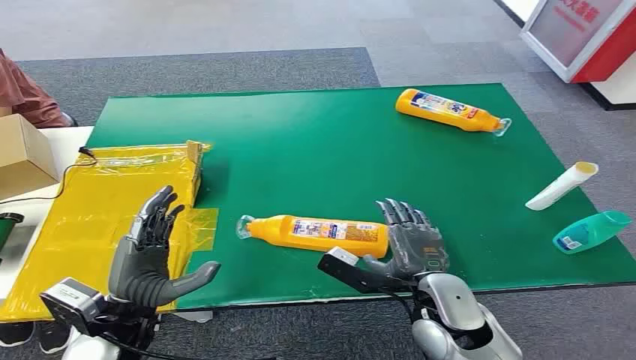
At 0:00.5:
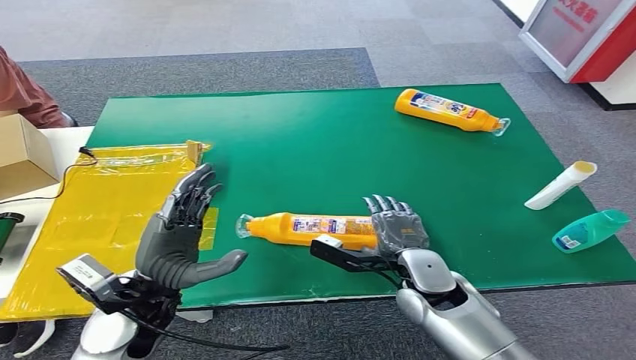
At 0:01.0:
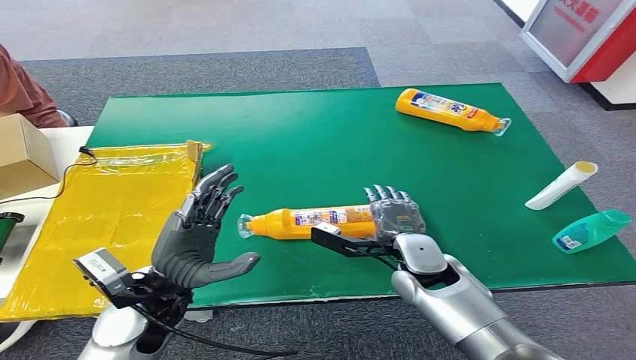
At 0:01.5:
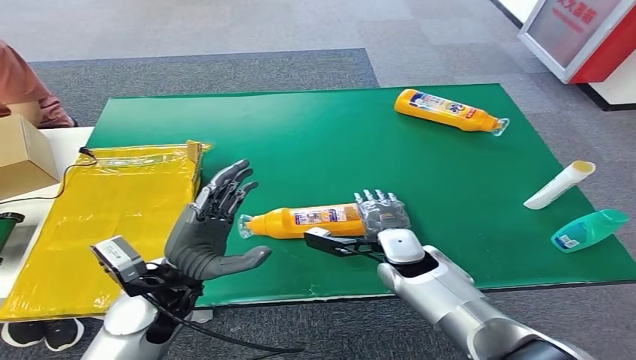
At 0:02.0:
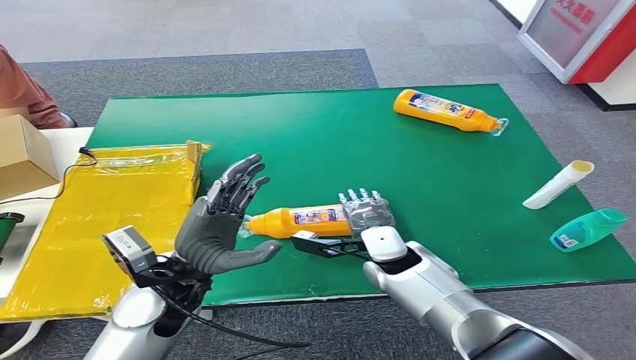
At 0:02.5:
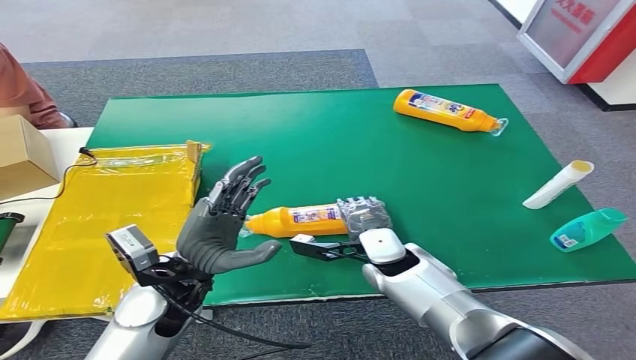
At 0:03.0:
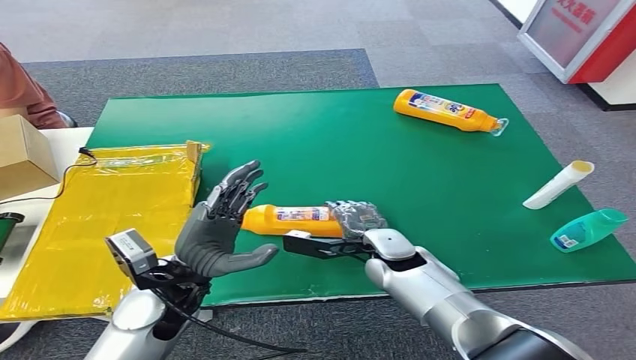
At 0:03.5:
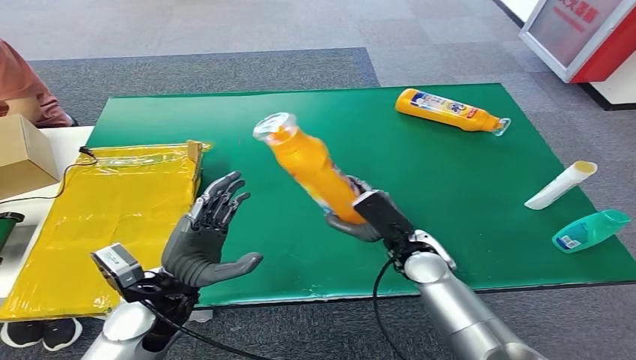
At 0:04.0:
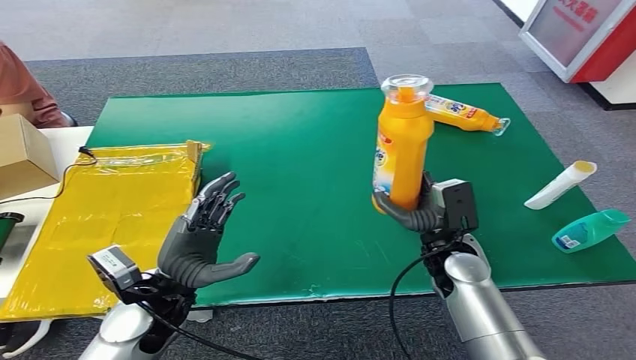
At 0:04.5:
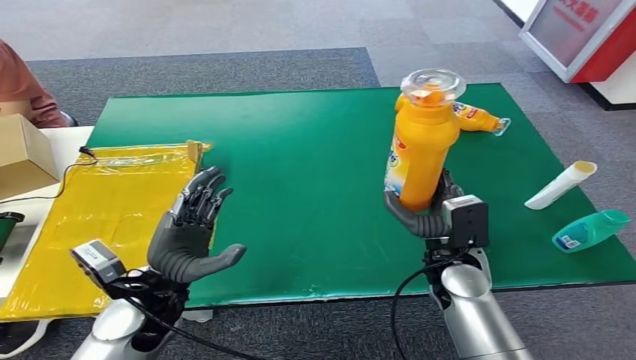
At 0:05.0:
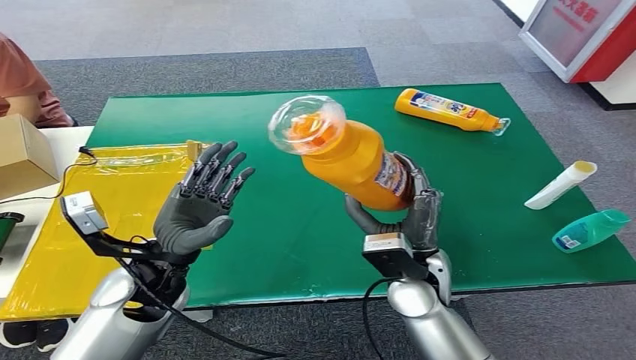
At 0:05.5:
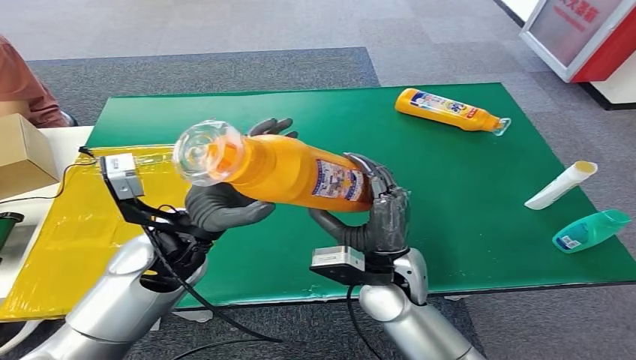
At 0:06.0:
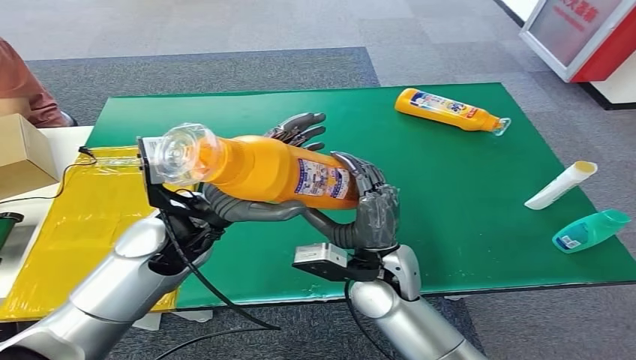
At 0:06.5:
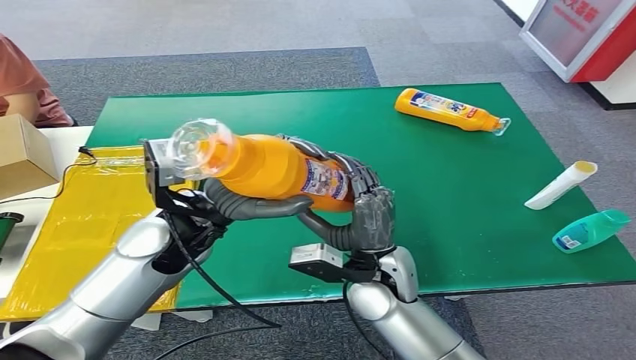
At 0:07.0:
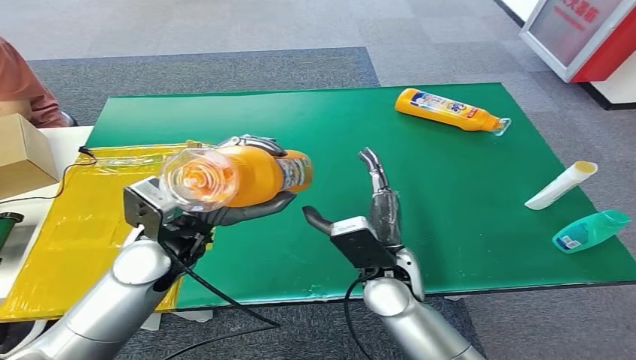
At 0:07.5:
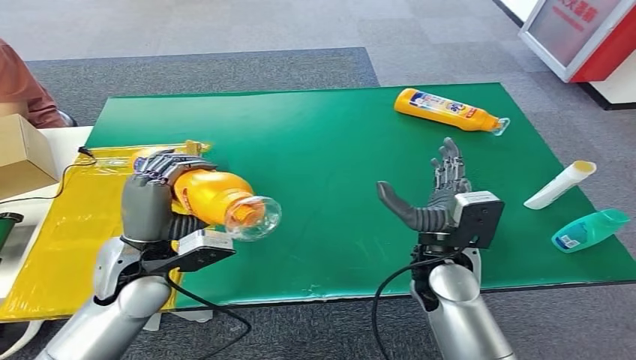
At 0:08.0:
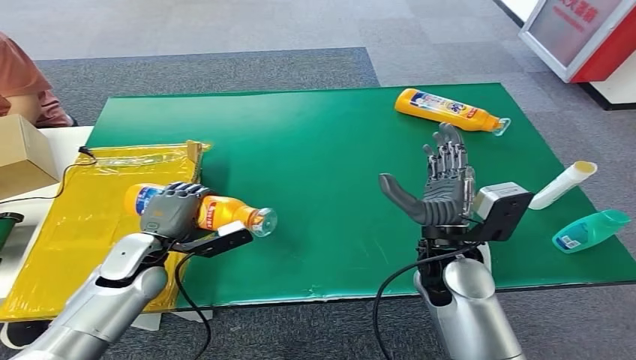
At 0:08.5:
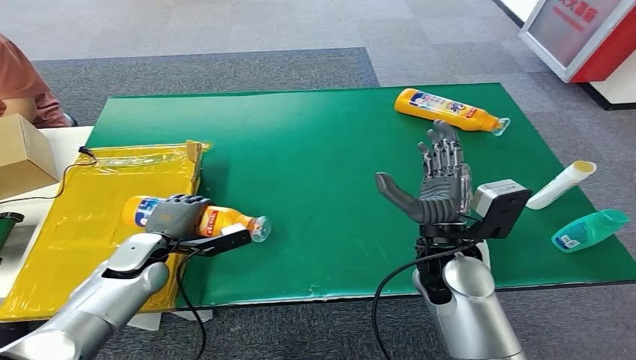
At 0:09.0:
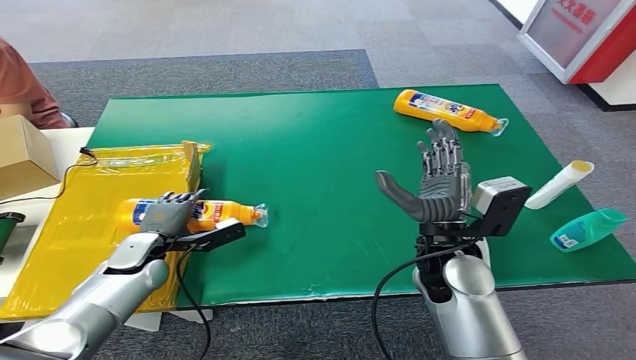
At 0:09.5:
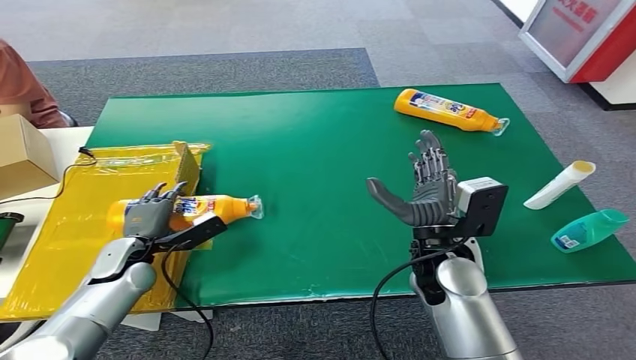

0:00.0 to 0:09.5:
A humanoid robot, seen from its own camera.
Step, 0:00.0 to 0:04.0: Pick up the bottle from the table.
Step, 0:04.5 to 0:09.5: Turn the bottle to the front side.
0:07.5 to 0:09.5: The left hand is displaced downward and to the left by approximately 15 cm.

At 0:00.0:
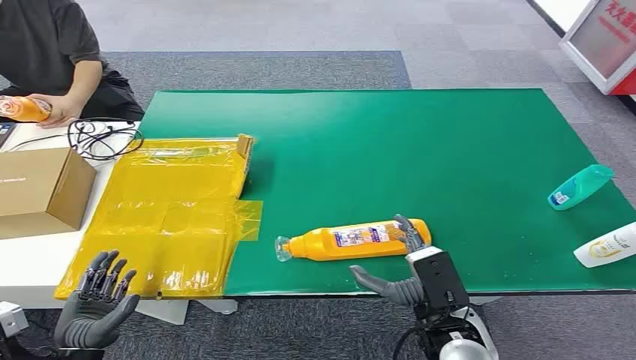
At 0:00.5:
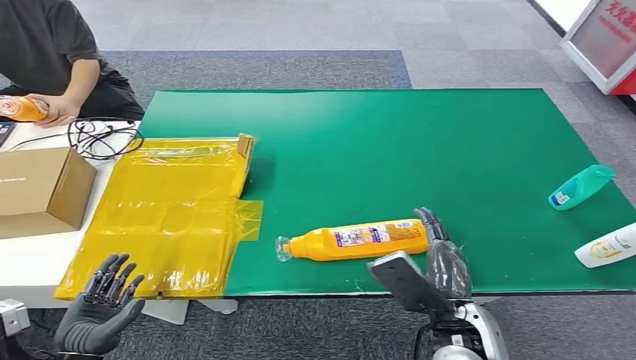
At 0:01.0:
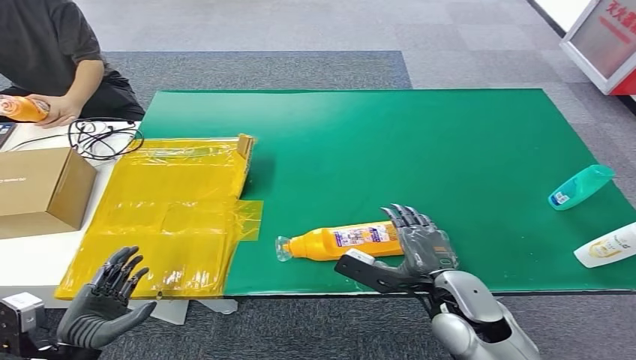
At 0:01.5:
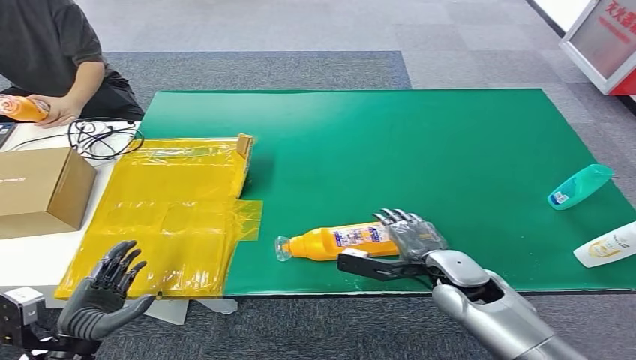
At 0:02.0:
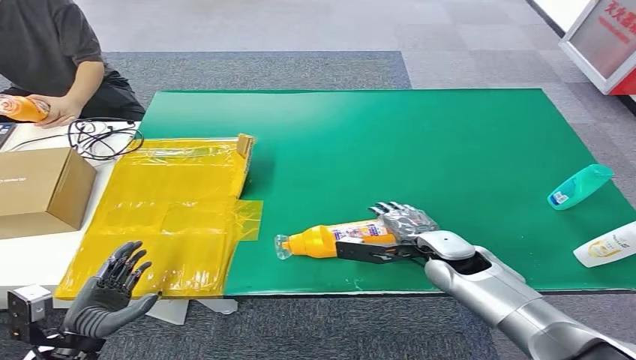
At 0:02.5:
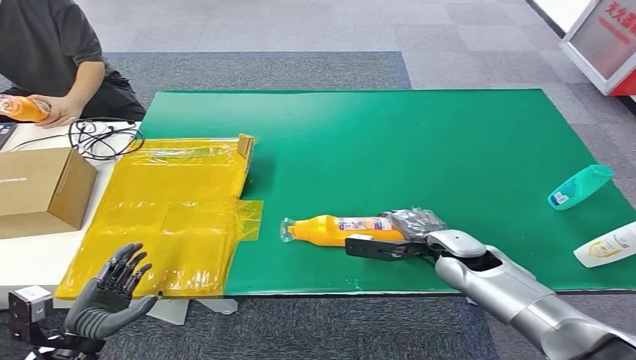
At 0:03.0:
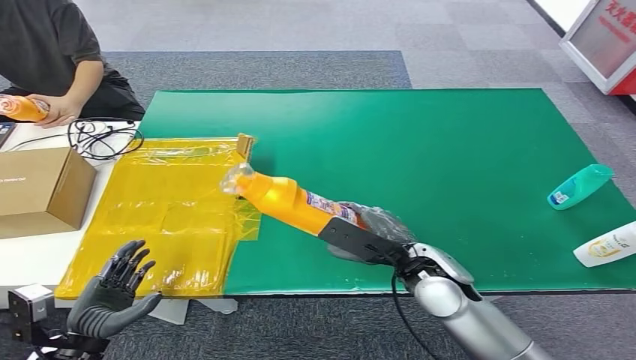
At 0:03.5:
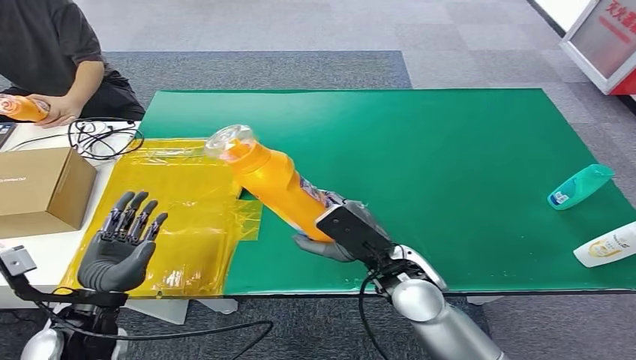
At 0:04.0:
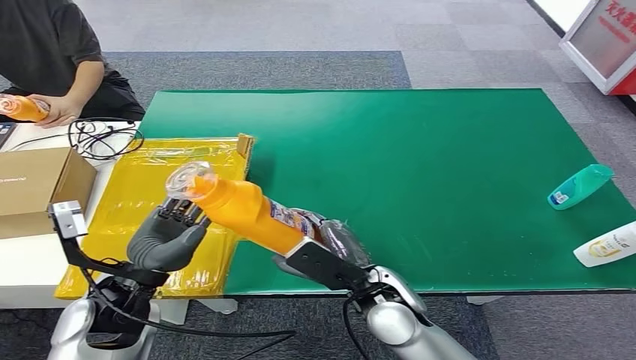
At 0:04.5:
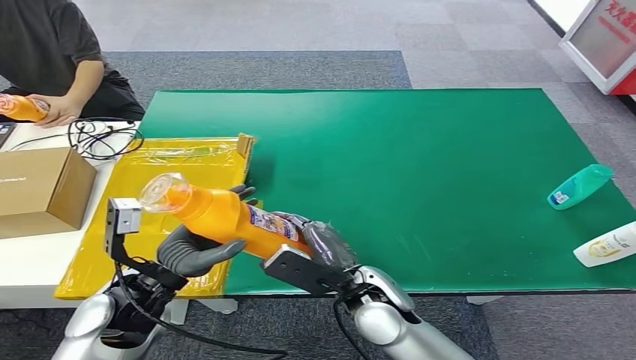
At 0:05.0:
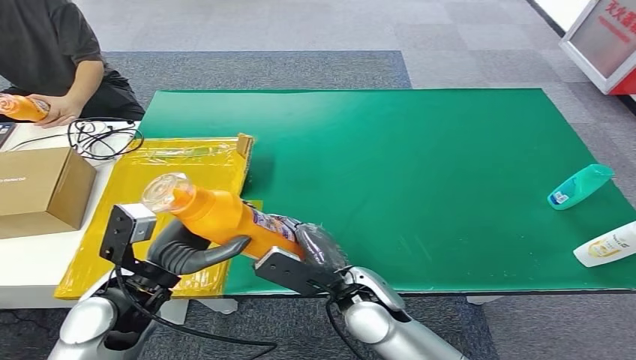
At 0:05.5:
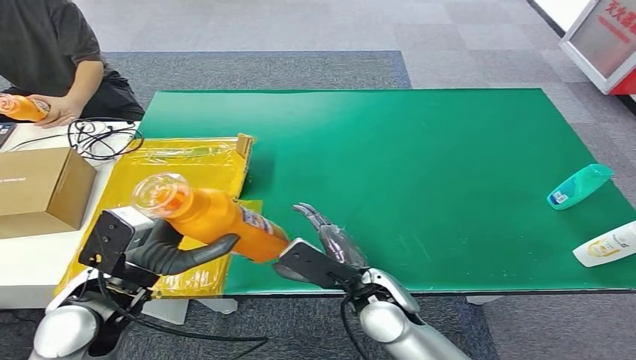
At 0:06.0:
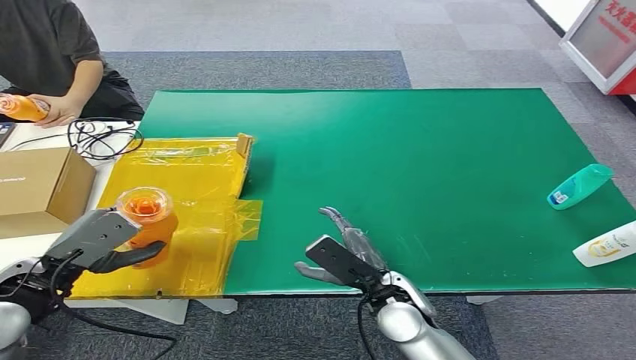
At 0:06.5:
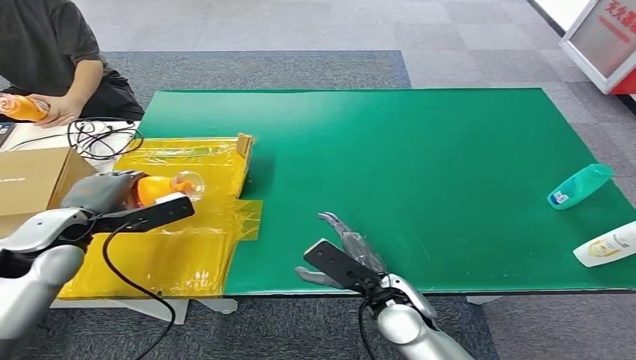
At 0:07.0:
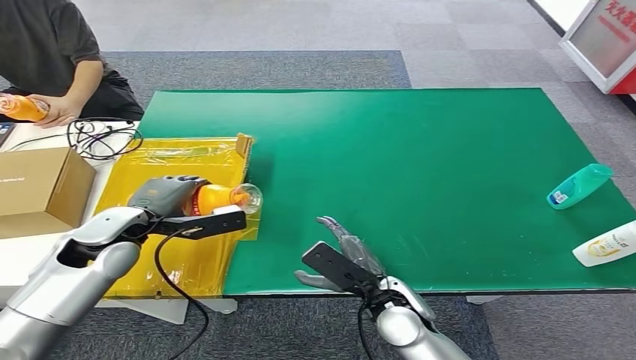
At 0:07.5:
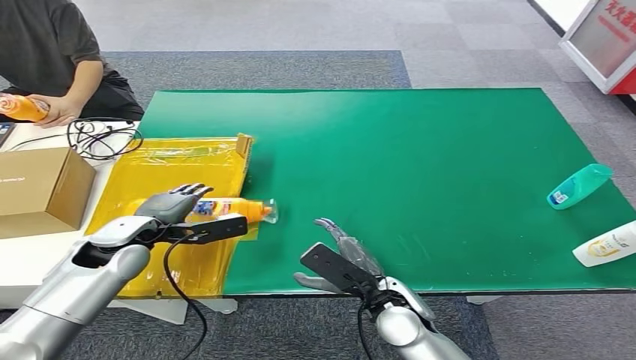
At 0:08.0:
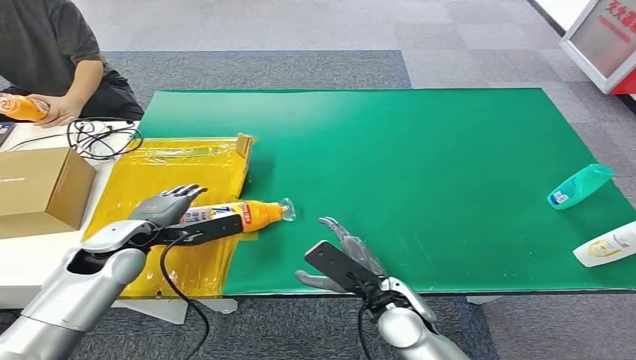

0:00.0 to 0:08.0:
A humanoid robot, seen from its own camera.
Step, 0:00.0 to 0:03.5: Pick up the bottle from the table.
Step, 0:04.0 to 0:08.0: Turn the bottle to the front side.
0:04.0 to 0:06.0: The left hand shifts some 15 cm to the left.
0:06.0 to 0:08.0: The left hand travels forward, to the right and downward by about 15 cm.

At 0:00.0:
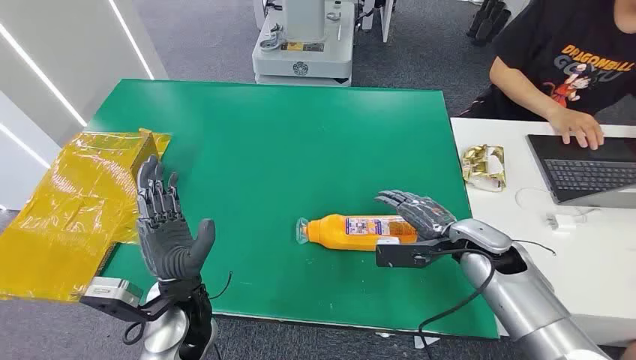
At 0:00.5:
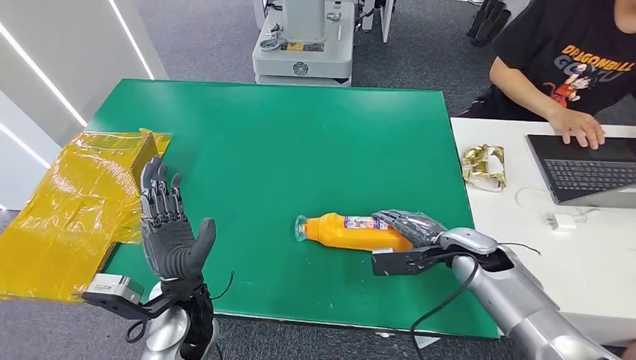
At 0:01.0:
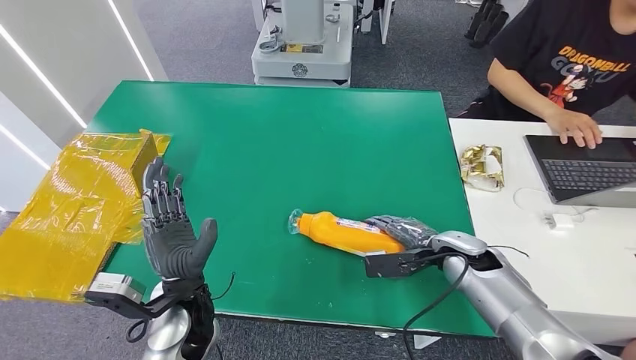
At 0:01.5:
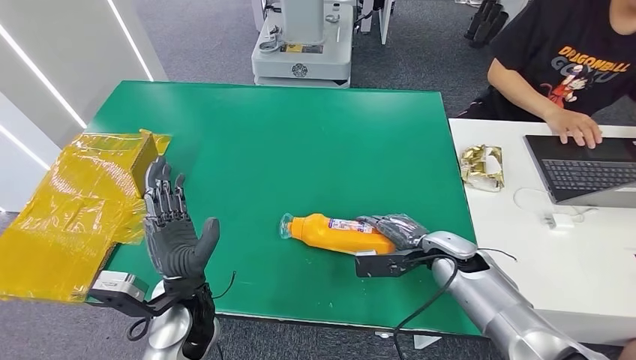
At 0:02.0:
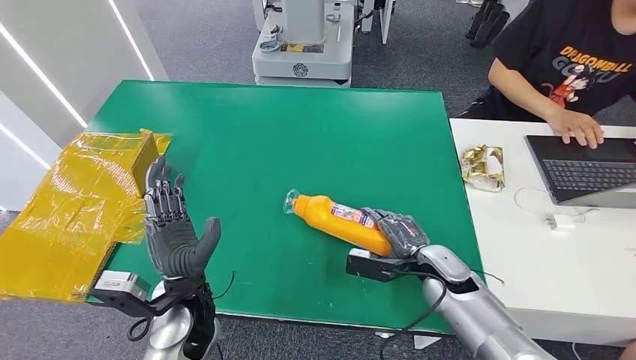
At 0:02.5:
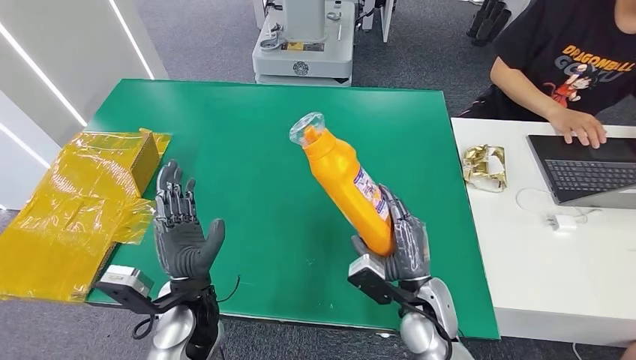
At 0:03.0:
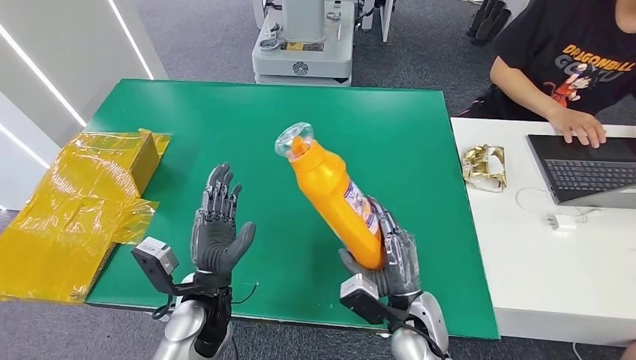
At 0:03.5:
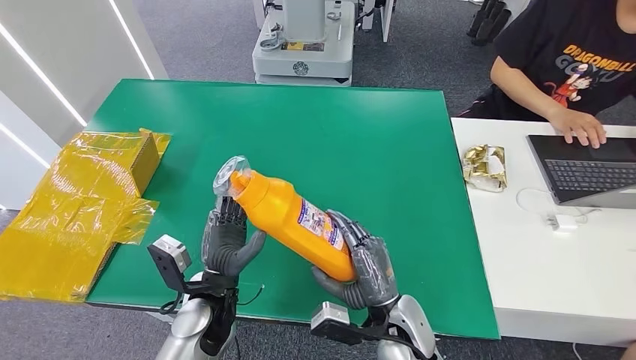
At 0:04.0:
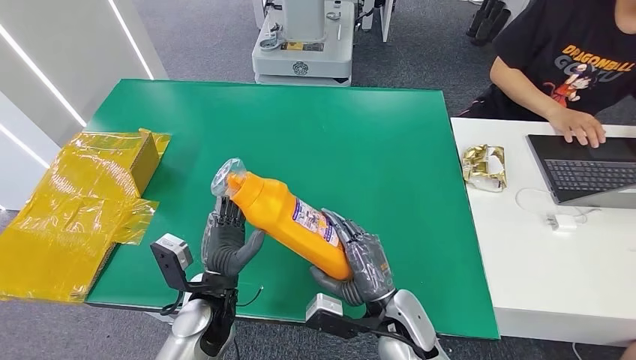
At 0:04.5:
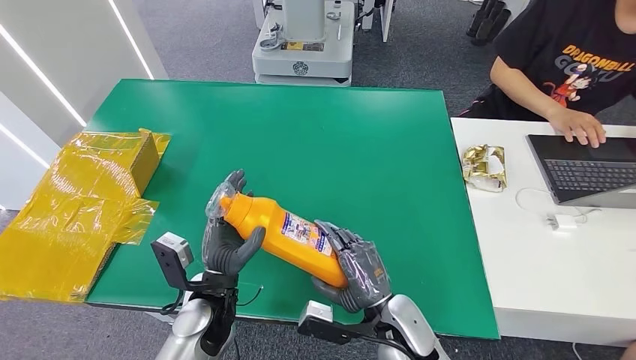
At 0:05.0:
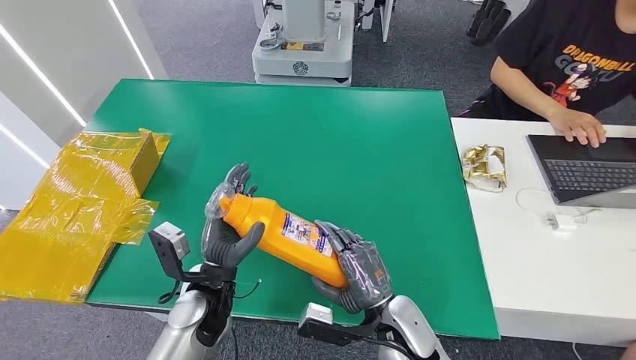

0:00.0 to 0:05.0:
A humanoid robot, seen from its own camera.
Step, 0:00.0 to 0:04.0: Pick up the bottle from the table.
0:02.5 to 0:05.0: The right hand shifts by some 5 cm.
